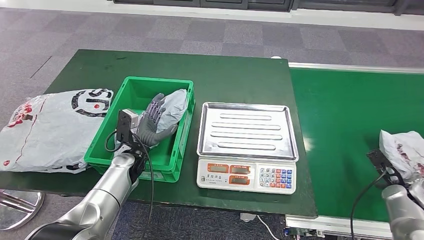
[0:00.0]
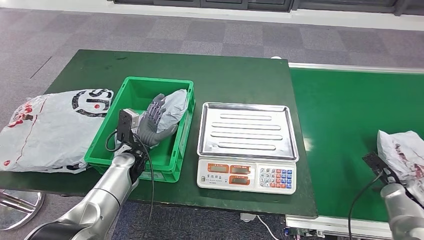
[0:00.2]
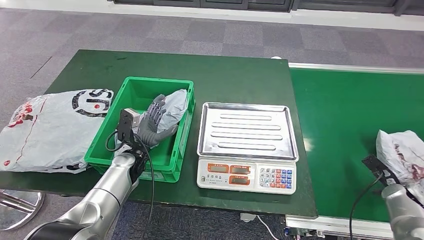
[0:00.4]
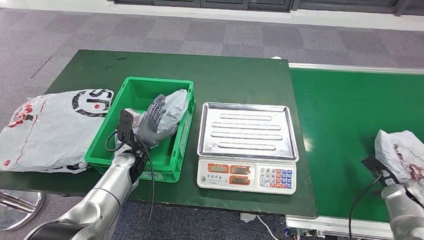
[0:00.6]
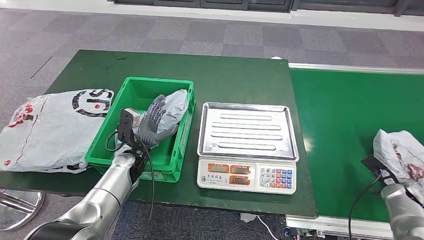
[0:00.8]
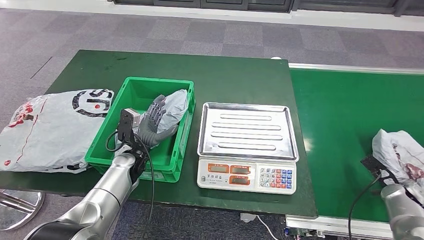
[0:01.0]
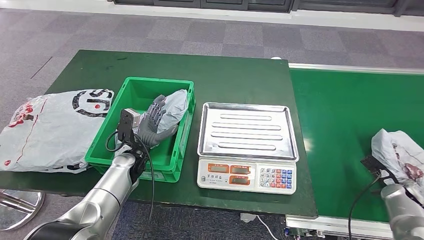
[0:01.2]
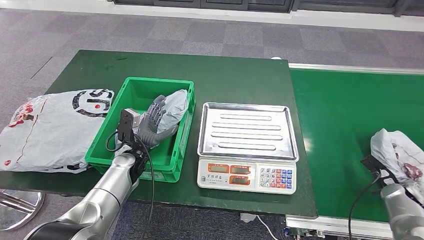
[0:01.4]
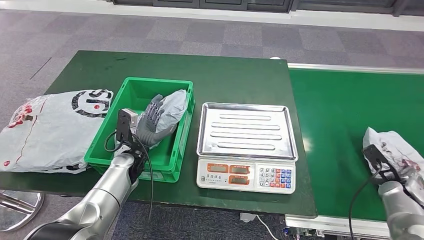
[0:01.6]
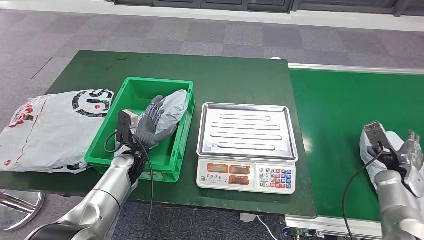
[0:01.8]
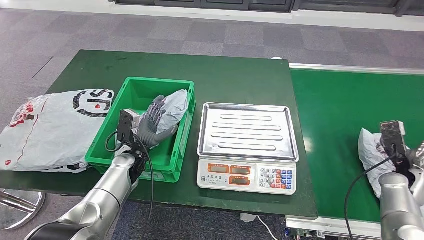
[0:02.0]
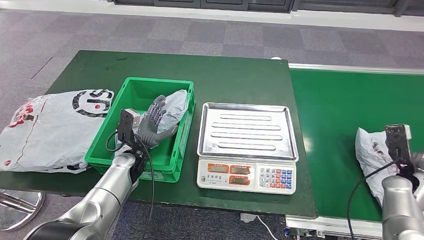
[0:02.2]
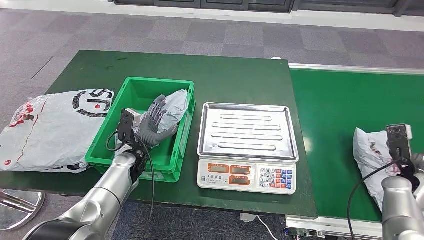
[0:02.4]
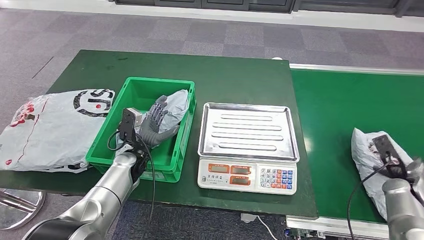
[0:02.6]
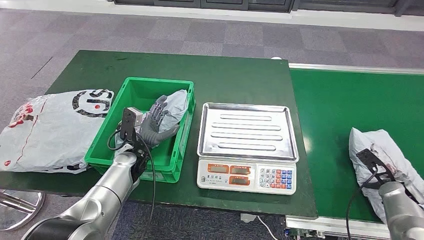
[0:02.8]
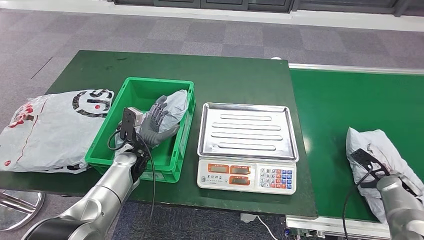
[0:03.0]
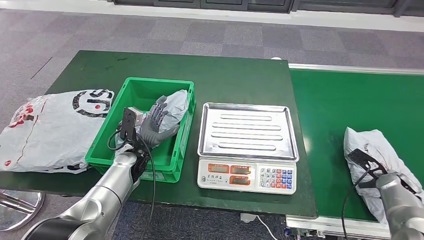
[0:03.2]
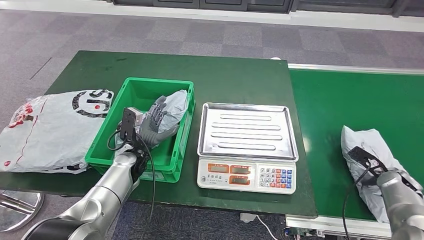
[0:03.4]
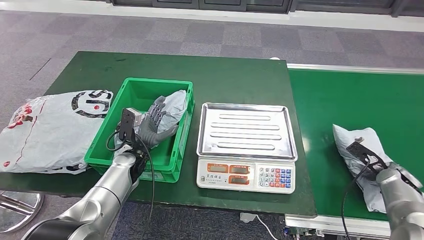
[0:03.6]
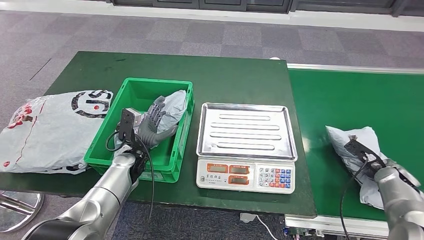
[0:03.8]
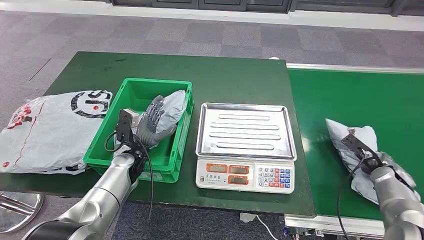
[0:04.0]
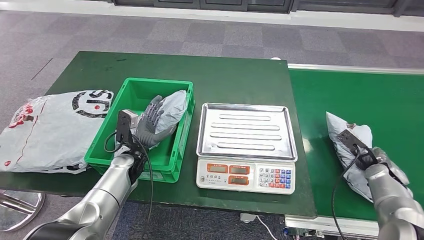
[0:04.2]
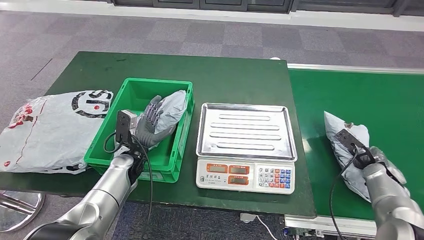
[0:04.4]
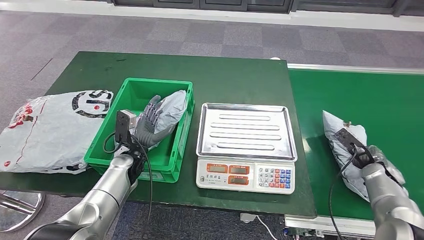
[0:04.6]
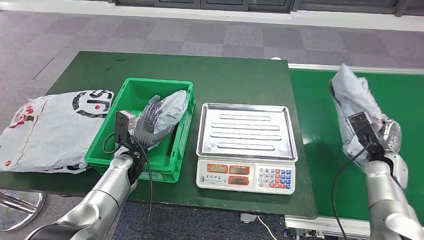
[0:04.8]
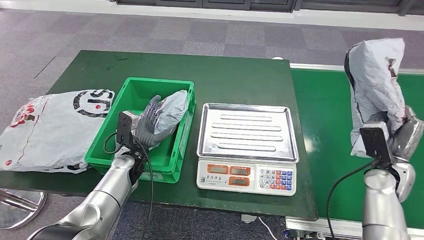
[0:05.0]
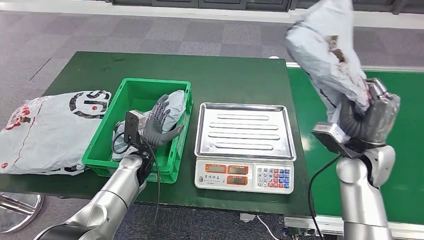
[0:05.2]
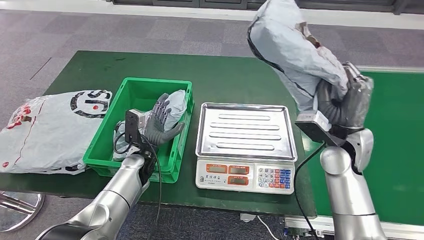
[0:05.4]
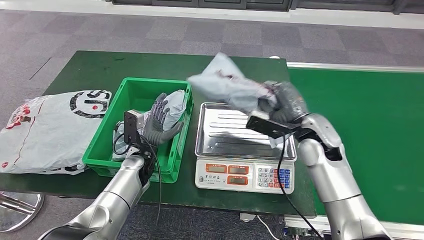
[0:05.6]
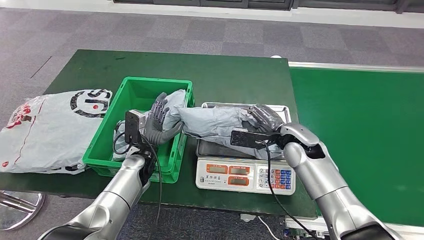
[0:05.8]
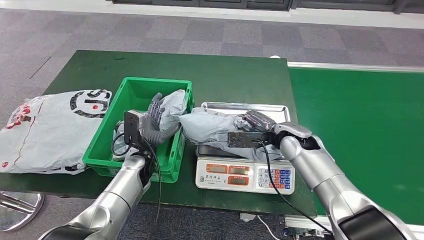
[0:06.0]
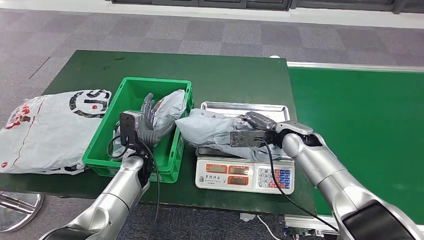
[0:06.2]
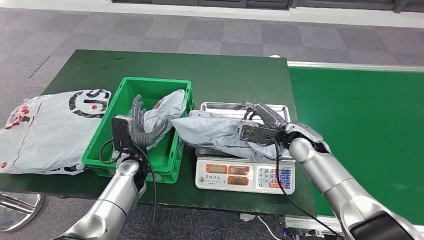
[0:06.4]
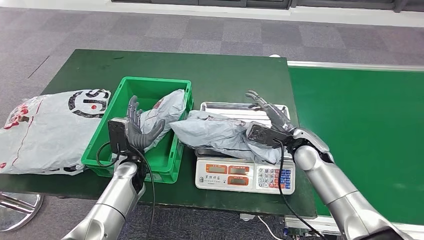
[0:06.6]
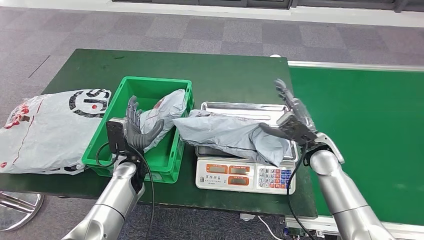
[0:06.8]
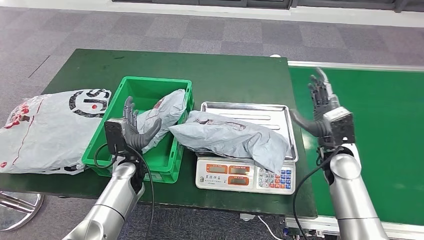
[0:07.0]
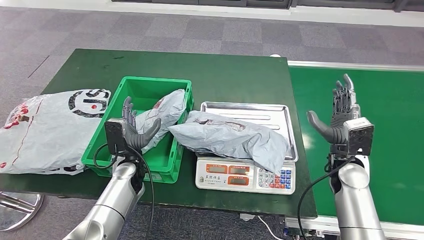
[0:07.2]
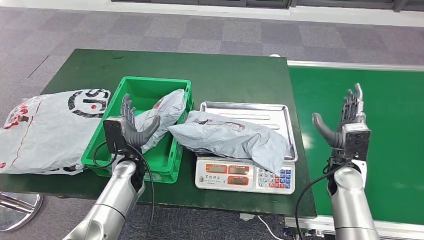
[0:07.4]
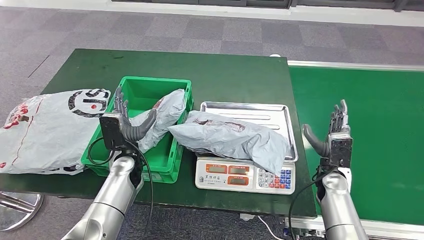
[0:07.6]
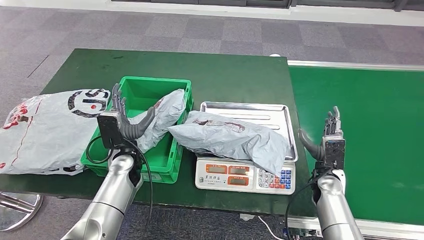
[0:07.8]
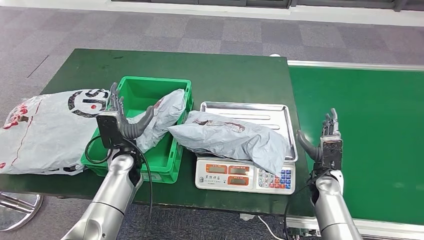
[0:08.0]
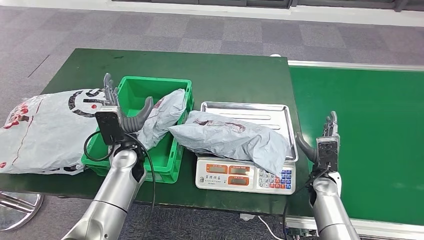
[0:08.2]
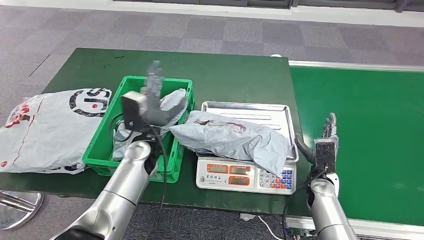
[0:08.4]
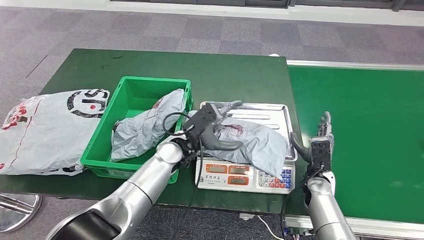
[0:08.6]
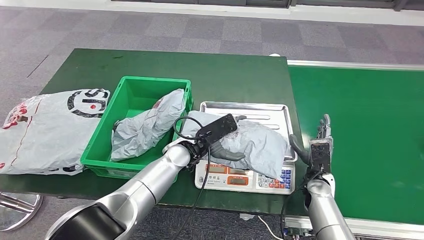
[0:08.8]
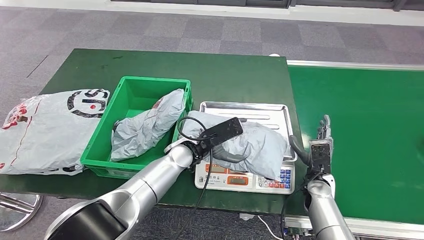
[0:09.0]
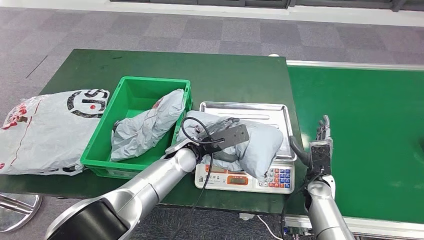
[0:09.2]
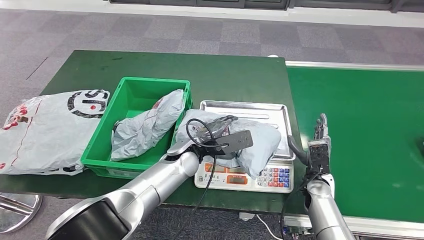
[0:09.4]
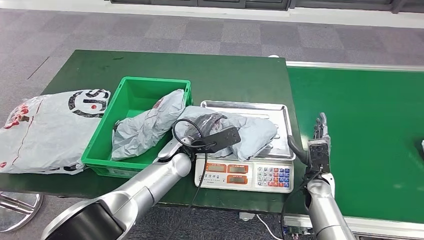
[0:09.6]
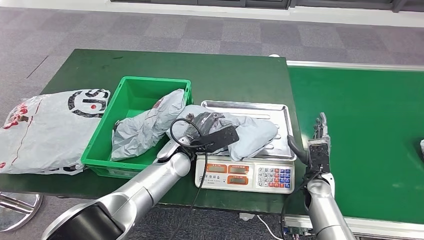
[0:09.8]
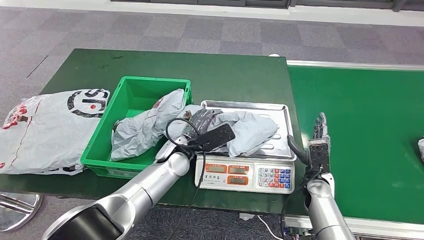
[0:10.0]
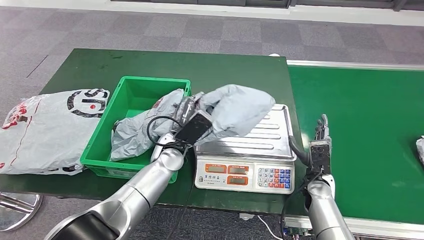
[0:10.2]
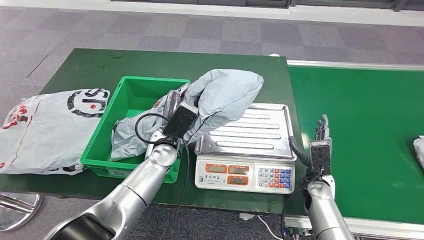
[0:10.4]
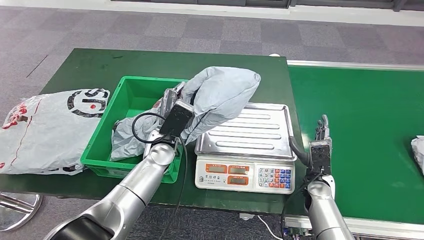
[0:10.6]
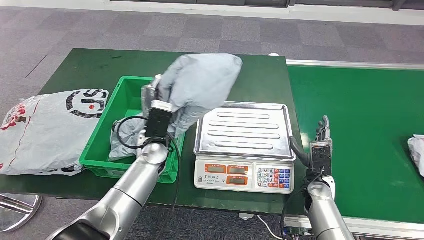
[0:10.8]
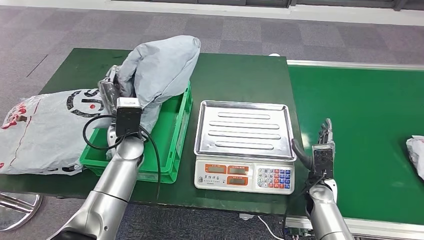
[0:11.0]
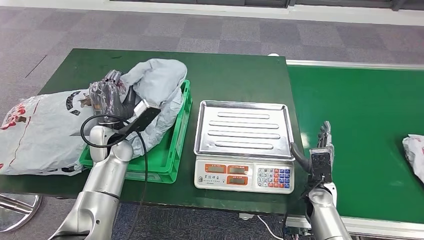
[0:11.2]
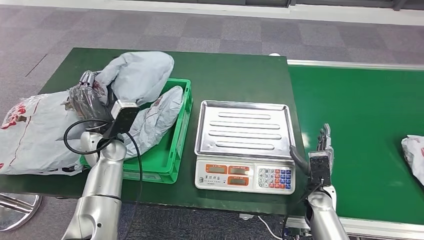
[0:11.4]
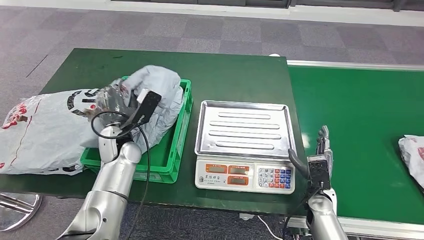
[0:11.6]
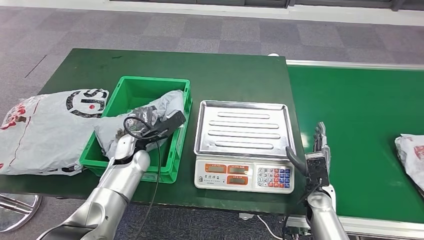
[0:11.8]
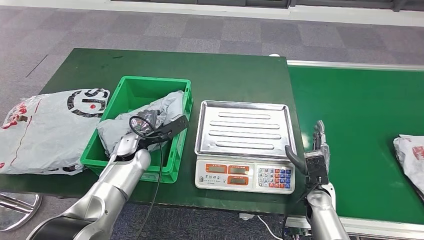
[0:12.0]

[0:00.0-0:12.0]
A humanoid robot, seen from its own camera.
Step, 0:00.0 to 0:04.6: Pick up the parcel from the conveyor belt.
Step, 0:05.0 to 0:07.2: Place the parcel onto the inbound machine.
Step, 0:07.4 to 0:10.6: Pick up the parcel from the inbound machine.
0:00.0 to 0:01.6: The hands make only small movements.
0:03.0 to 0:04.4: The right hand ends up some 5 cm from where it was.
0:07.6 to 0:09.0: The right hand shifts by some 5 cm. Meanwhile the left hand goes approximately 15 cm to the right.
0:09.0 to 0:10.4: The left hand shifts by about 5 cm.
0:10.4 to 0:12.0: The left hand is displaced to the left by some 10 cm.

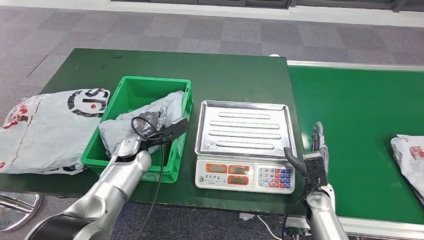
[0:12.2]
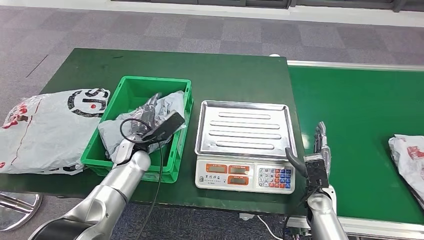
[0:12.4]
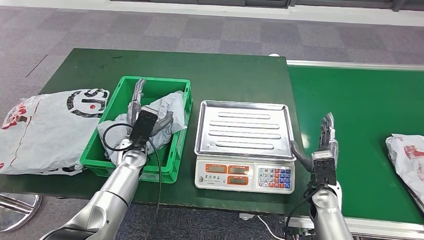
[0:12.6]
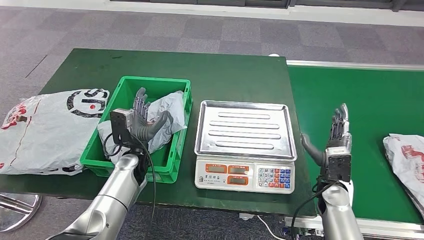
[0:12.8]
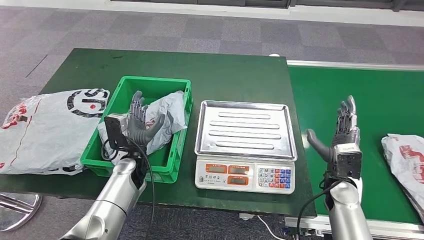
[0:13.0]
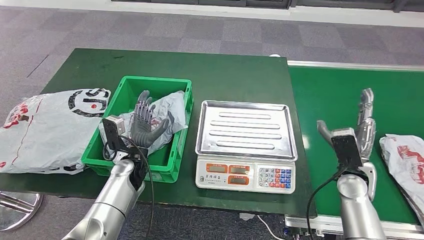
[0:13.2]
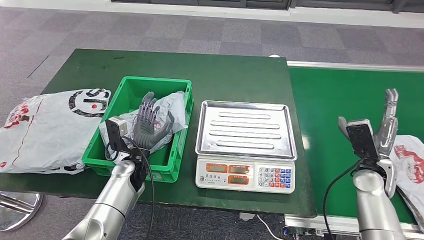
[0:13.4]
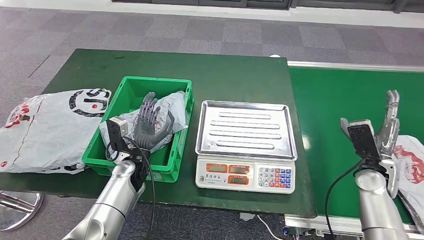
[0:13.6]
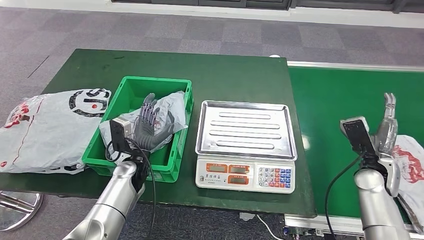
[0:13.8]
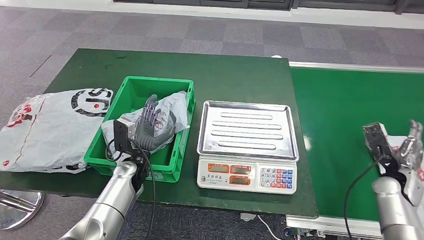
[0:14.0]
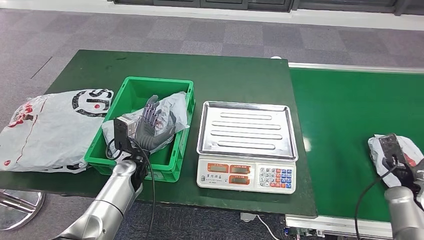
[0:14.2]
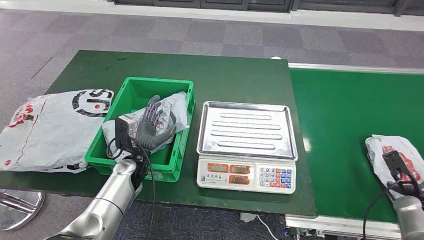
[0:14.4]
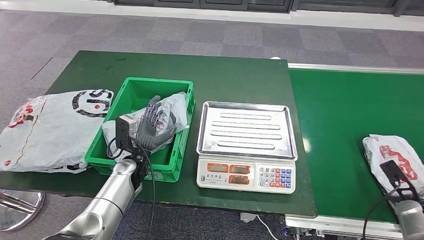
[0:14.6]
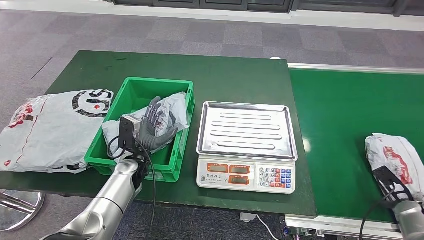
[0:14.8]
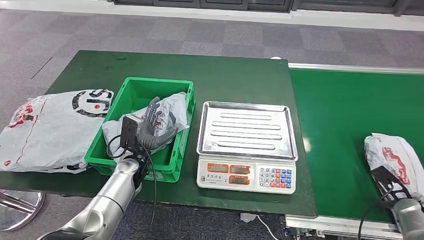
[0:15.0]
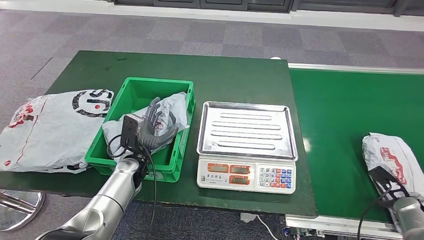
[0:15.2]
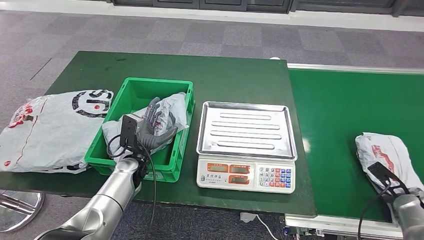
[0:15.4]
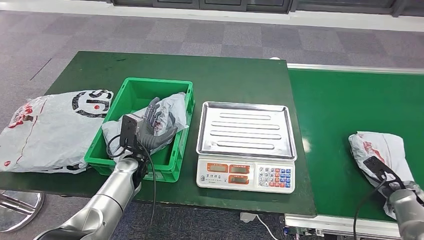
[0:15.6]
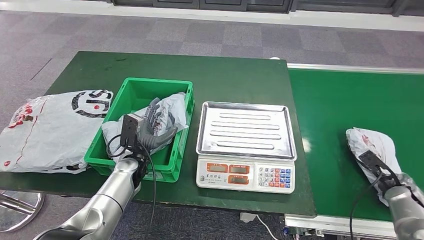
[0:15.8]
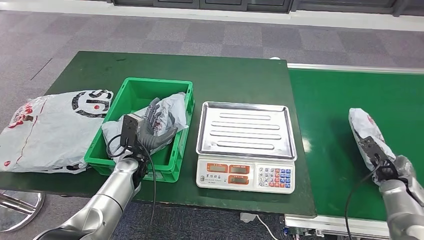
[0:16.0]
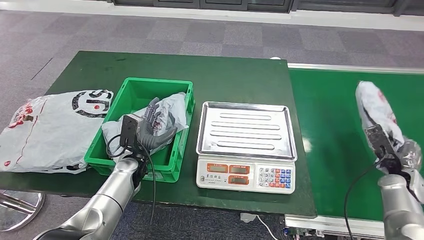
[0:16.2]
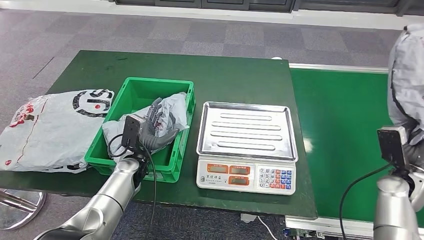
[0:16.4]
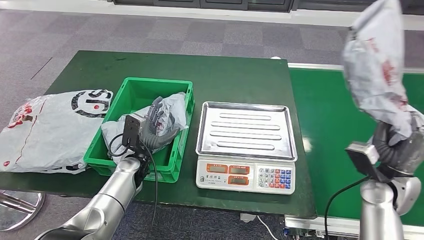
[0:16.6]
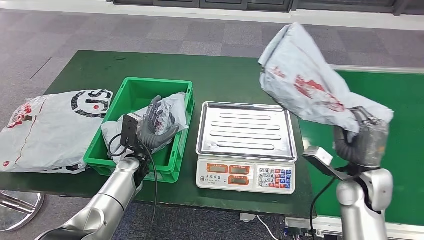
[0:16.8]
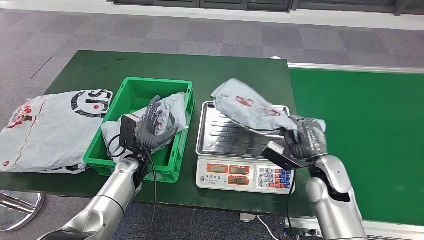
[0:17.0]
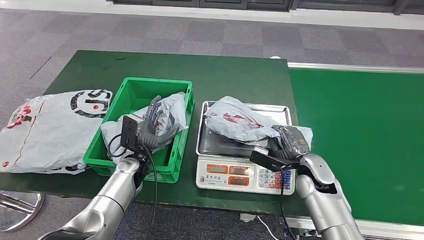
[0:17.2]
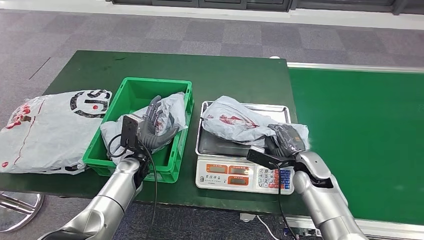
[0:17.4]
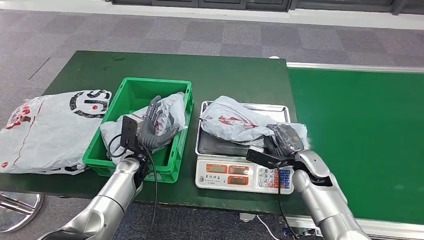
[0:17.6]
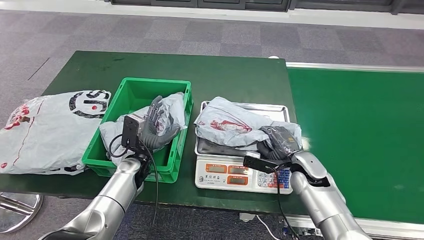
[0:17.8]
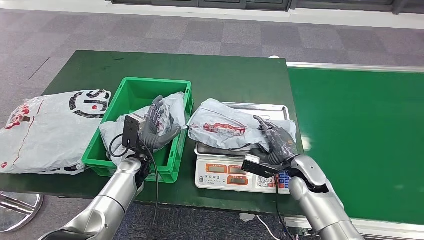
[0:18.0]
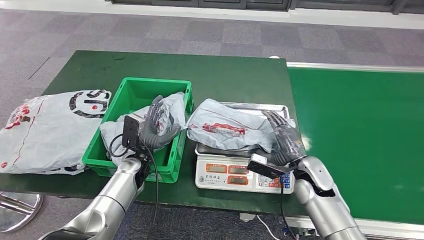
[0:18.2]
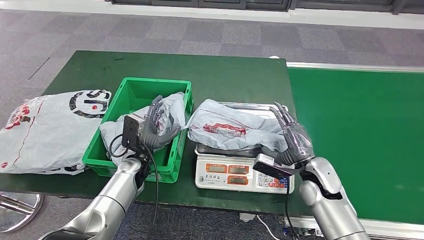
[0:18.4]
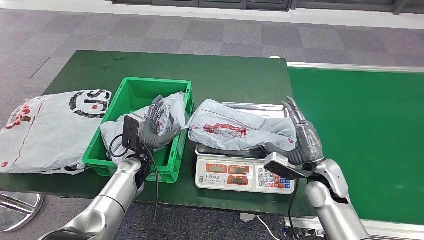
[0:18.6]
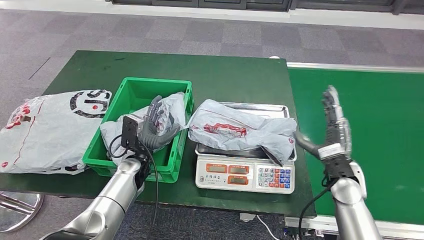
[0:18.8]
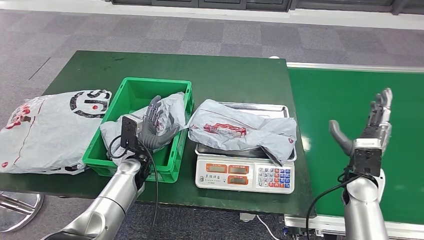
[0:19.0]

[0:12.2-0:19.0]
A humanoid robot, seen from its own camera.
Step, 0:13.2 to 0:16.6: Pick up the parcel from the conveyor belt.
Step, 0:16.8 to 0:18.8: Place the parcel onto the inbound machine.
0:15.0 to 0:16.2: The right hand is displaced forward by some 5 cm.
0:17.6 to 0:19.0: The right hand is displaced to the right by about 10 cm.